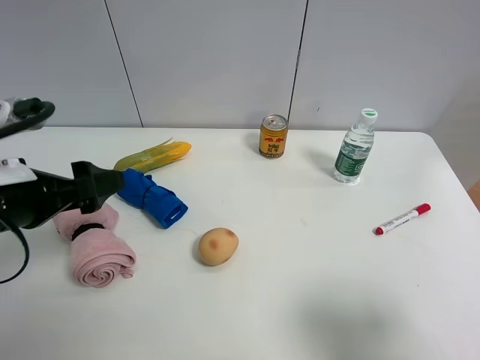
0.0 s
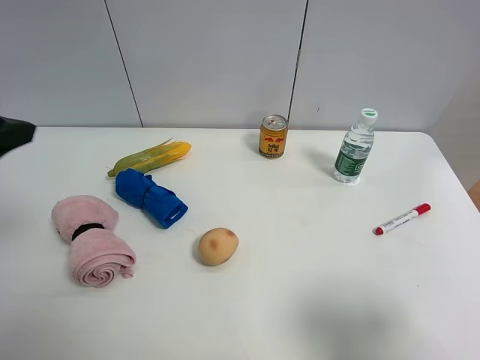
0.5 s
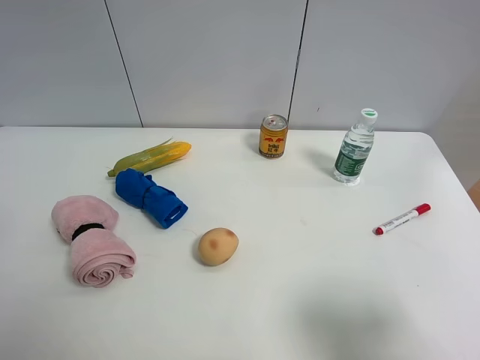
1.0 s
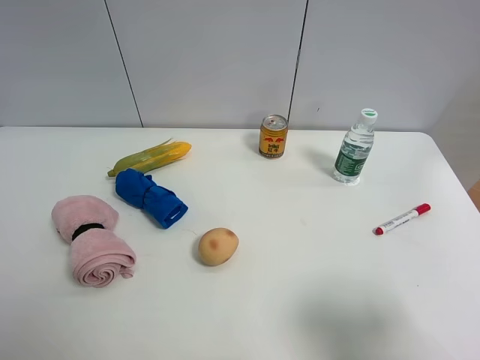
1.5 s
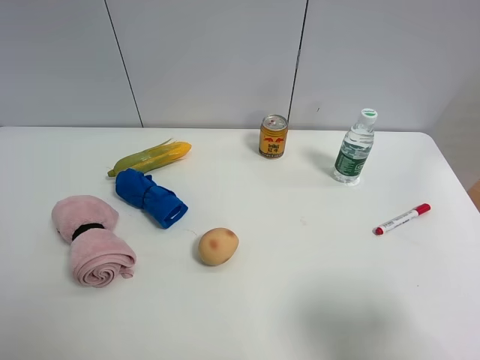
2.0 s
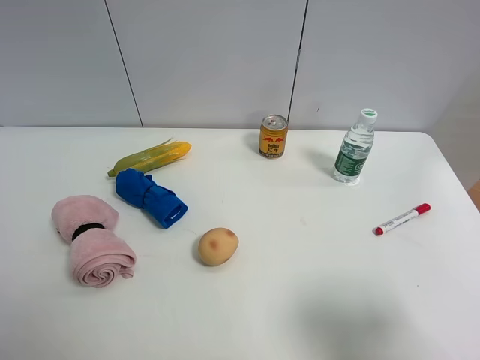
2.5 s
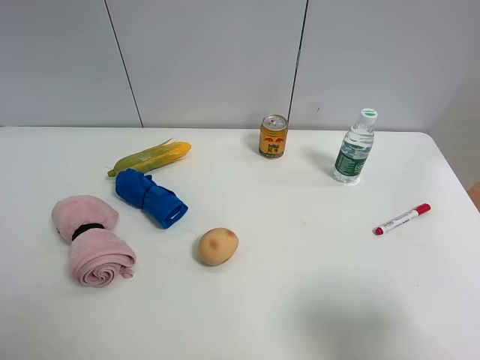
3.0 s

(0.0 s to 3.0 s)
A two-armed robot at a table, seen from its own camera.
Task of the whole recording: the gripper move the object.
0.0 s - 1.5 s: The left gripper shifts approximately 20 cm backward, upward and to the left.
